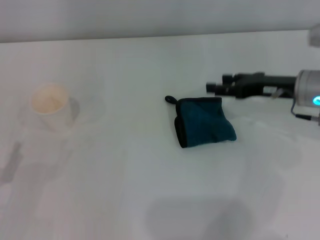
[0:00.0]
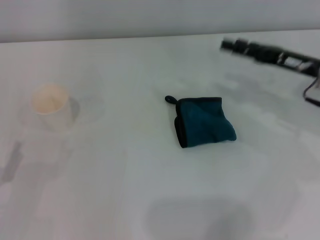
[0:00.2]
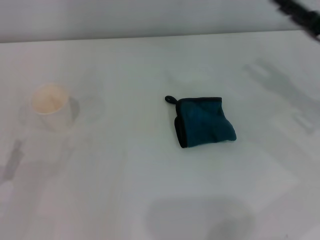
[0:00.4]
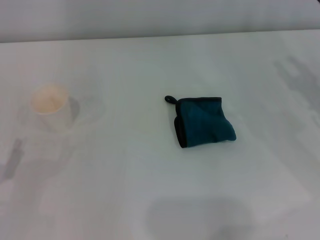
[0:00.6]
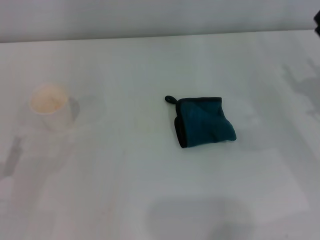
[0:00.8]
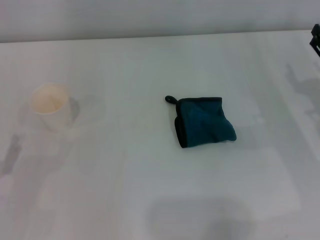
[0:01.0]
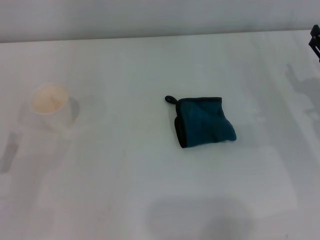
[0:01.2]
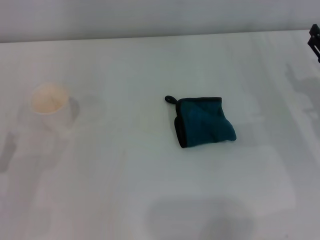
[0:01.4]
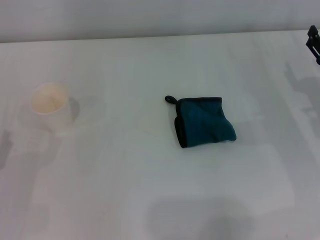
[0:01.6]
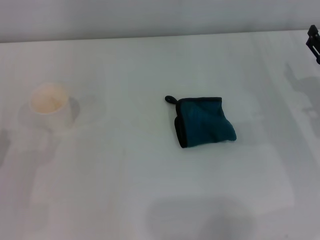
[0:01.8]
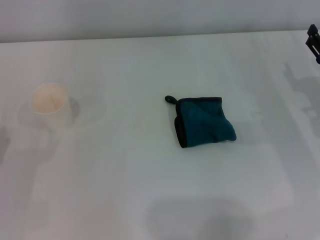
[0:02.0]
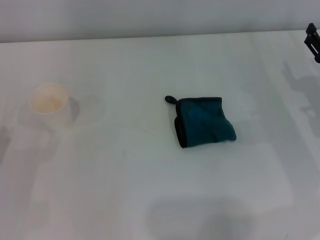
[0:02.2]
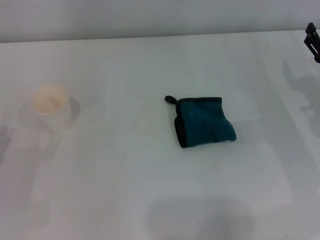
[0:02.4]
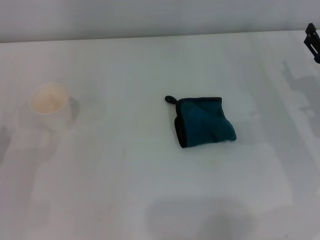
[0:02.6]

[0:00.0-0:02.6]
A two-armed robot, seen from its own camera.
0:00.0 to 0:01.2: The right gripper moves to the right, approximately 5 cm.
